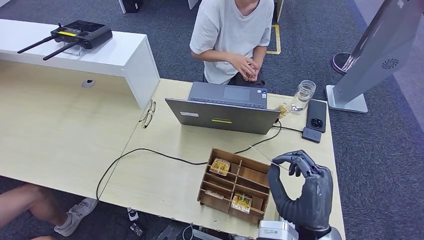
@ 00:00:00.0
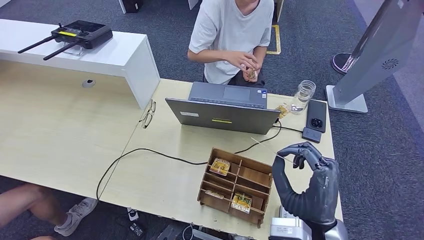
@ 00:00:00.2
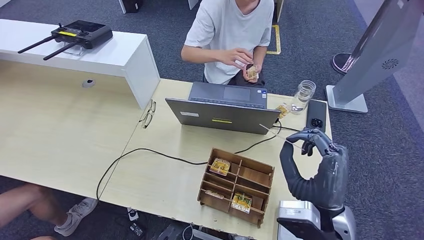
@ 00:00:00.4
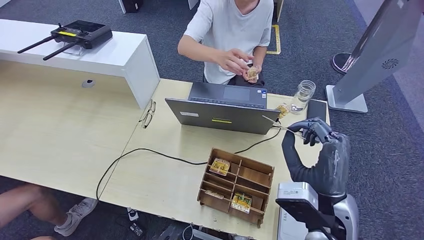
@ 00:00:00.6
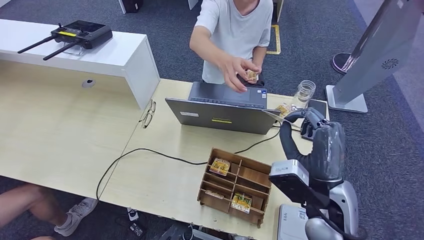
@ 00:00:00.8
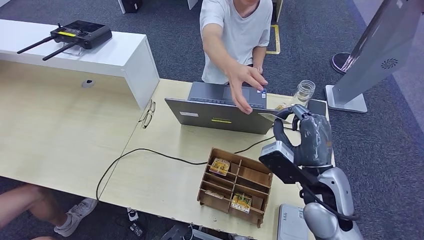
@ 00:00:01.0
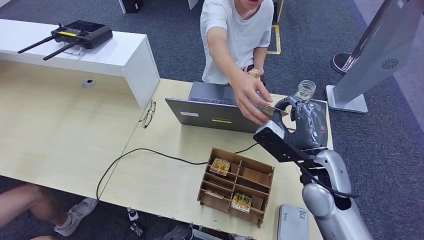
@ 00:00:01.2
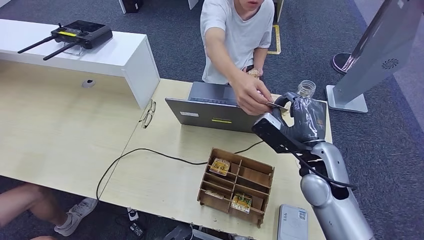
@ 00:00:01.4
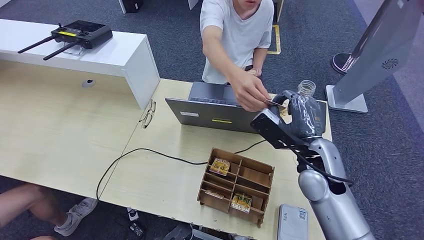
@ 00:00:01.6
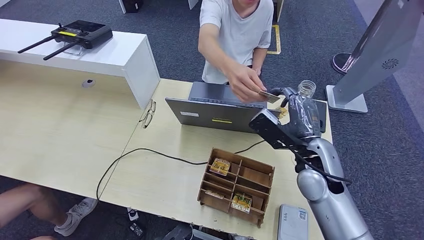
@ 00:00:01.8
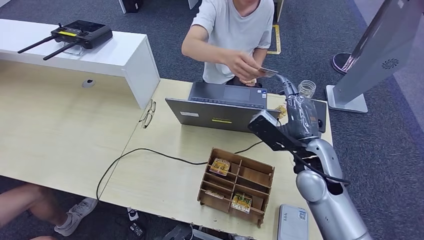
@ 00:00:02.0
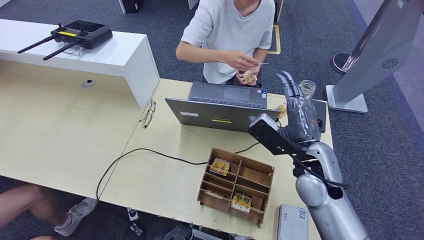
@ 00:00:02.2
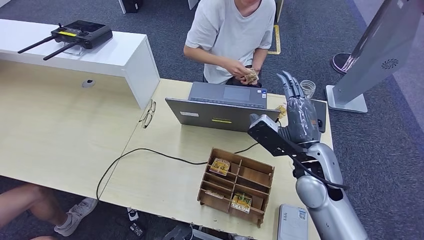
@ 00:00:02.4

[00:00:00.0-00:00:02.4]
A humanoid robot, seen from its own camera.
Step, 00:00:00.4 to 00:00:02.4: Hand the room key to the person.
00:00:00.0 to 00:00:01.2: The right hand goes approximately 15 cm forward.
00:00:01.2 to 00:00:02.4: The hands stay close to where they were, moving slightly.
